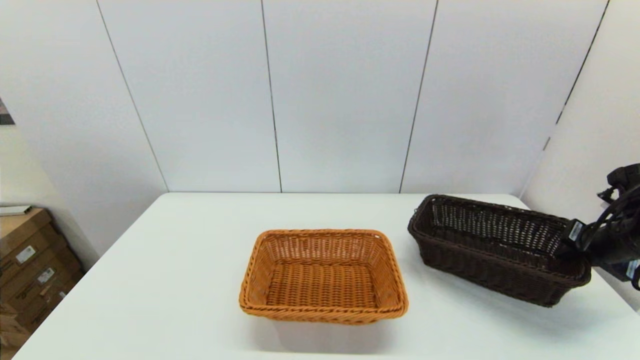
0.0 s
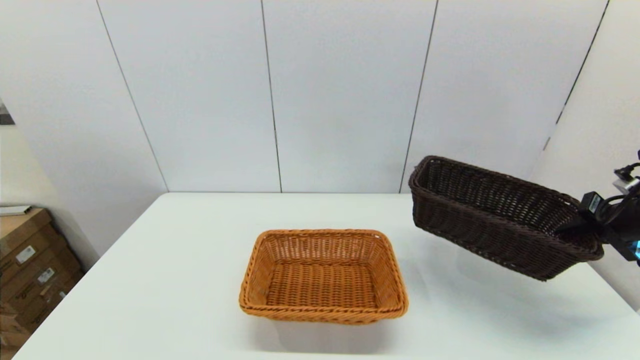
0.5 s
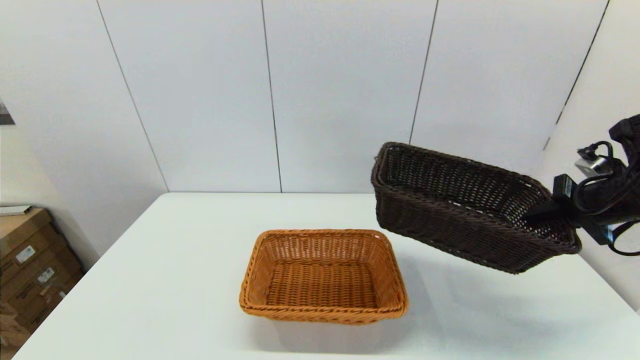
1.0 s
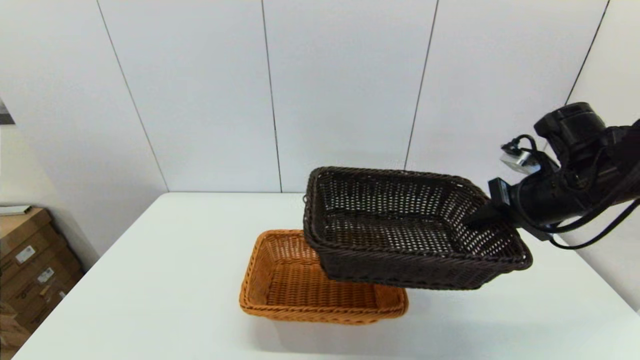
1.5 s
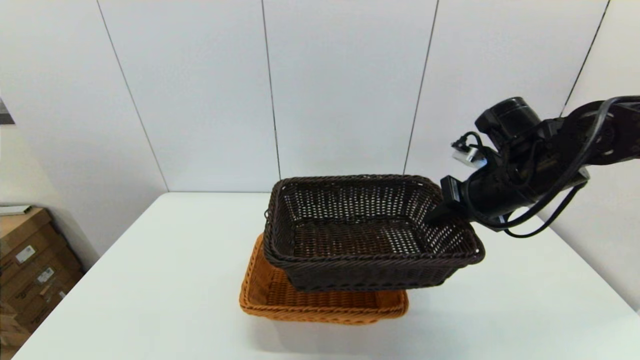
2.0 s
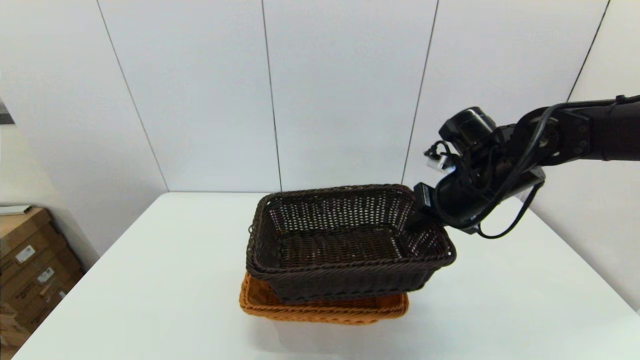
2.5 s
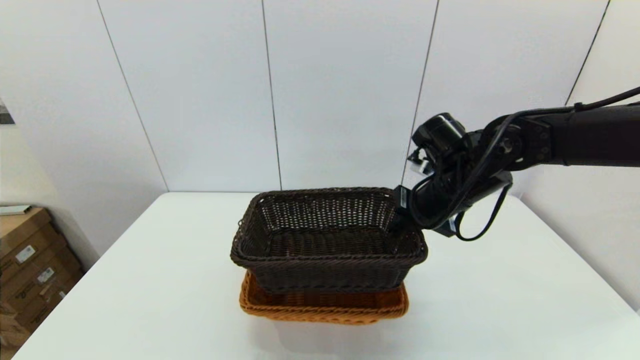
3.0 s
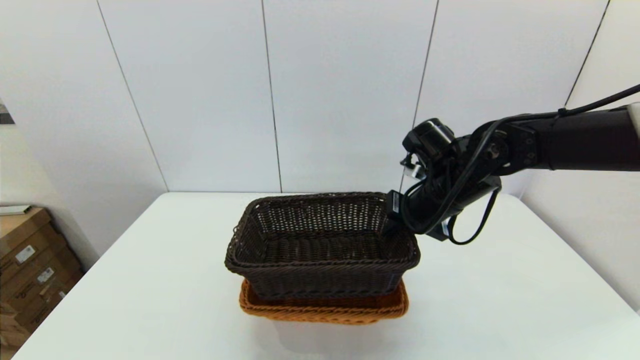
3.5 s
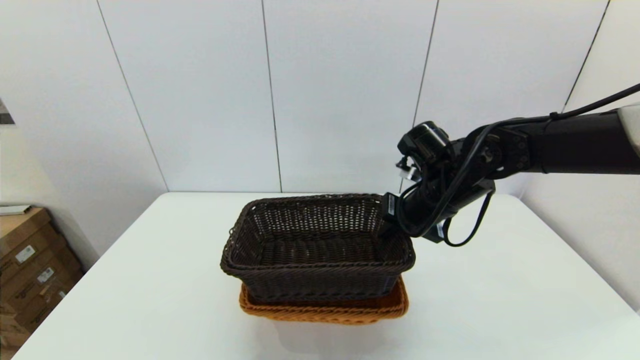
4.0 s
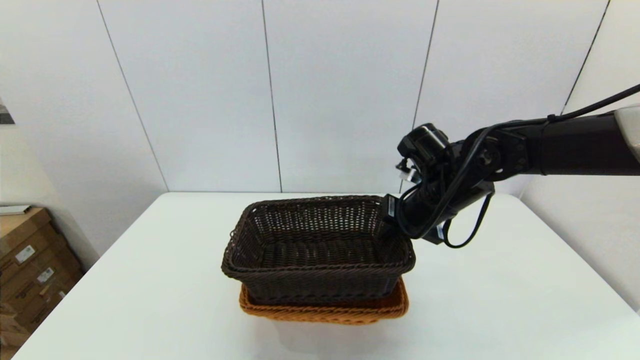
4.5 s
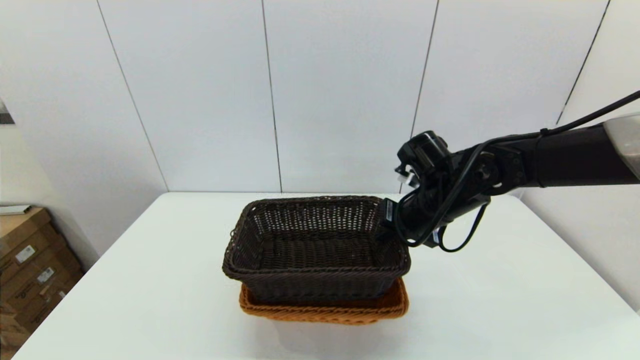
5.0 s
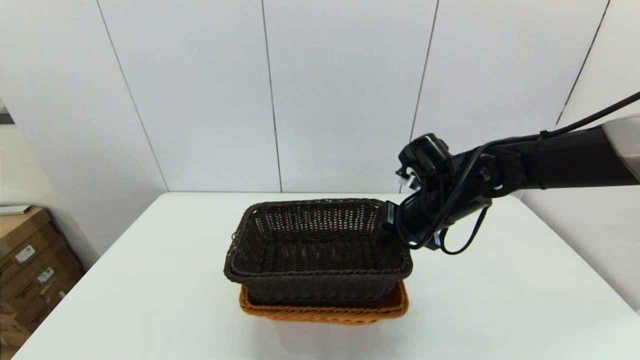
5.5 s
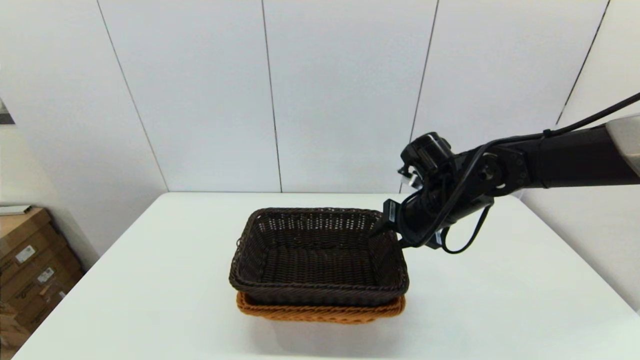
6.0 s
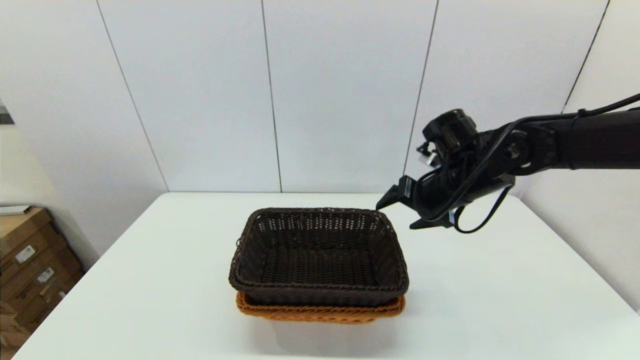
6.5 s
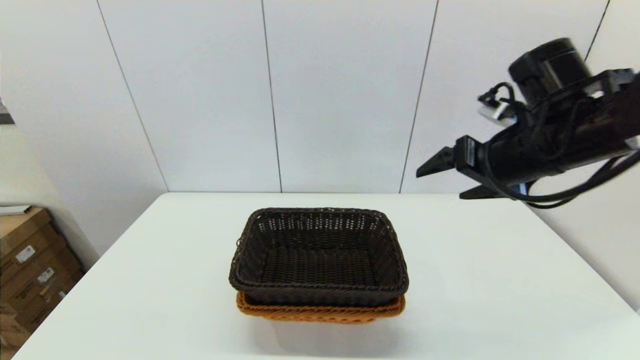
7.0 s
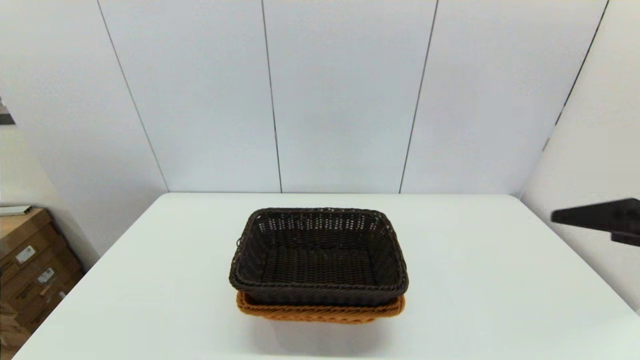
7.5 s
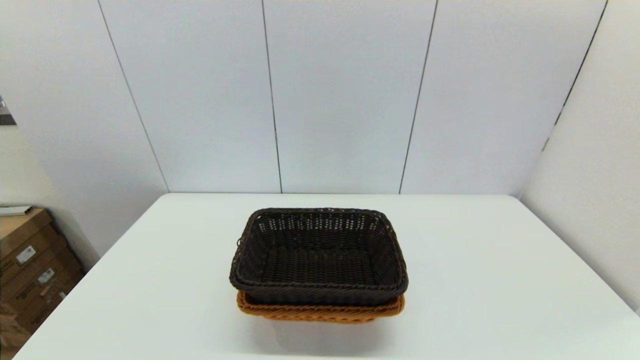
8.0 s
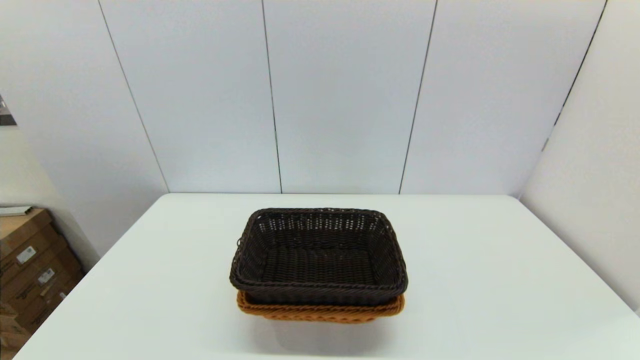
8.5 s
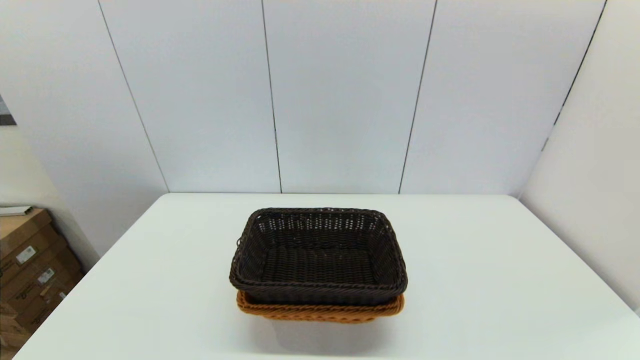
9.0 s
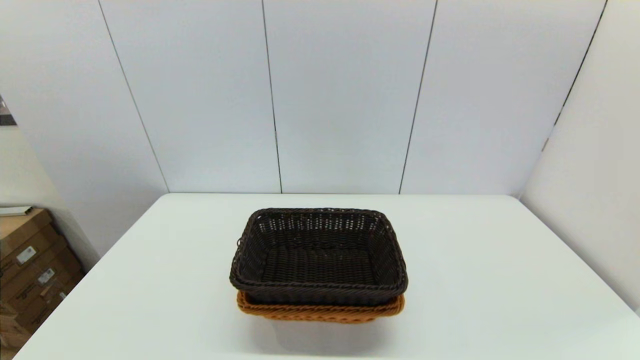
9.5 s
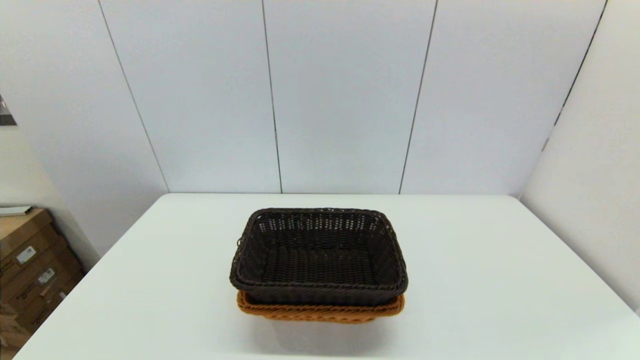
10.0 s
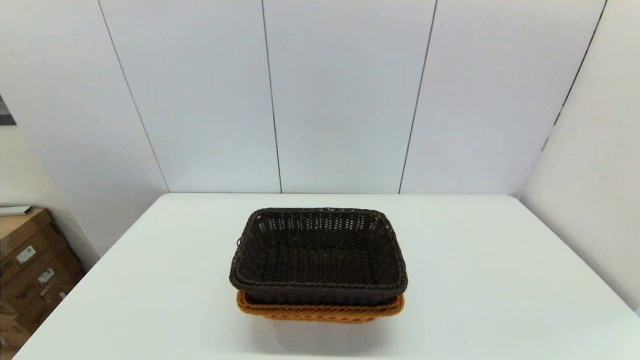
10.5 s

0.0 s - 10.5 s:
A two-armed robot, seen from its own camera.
Task of the whole recording: stack a basket on top of another basket.
Step, 0.0 s - 6.5 s: Place the dark basket into the light color basket with the right gripper.
0.0 s - 2.0 s: The right gripper moves to the left and upward, some 20 cm.
2.0 s - 4.0 s: The right gripper heads to the left, covering about 10 cm.
4.0 s - 6.5 s: The right gripper opens.
6.5 s - 8.5 s: The right gripper travels backward by approximately 40 cm.
